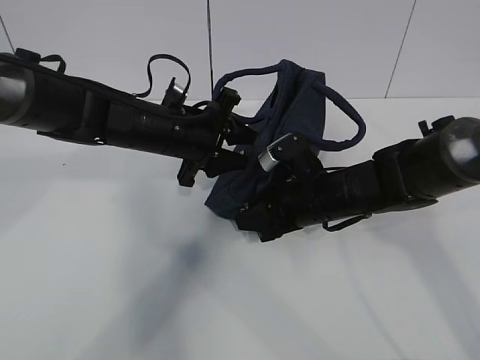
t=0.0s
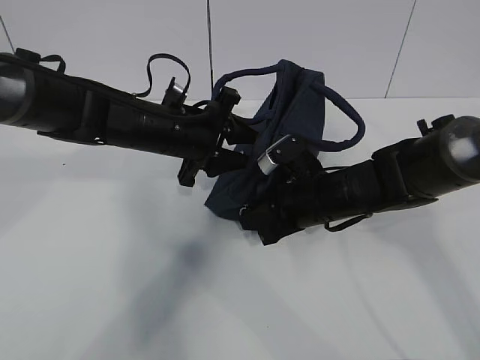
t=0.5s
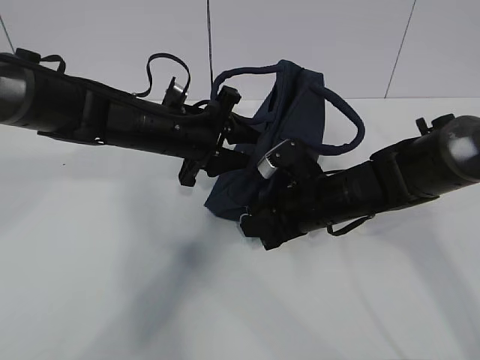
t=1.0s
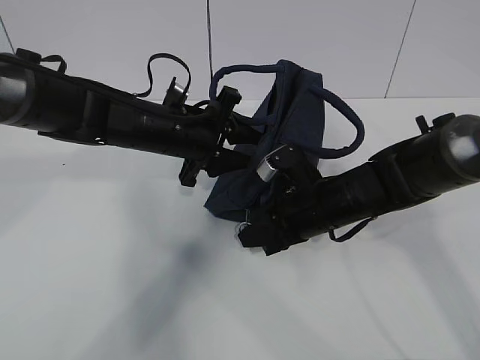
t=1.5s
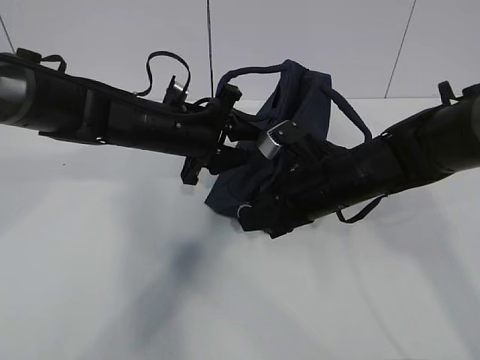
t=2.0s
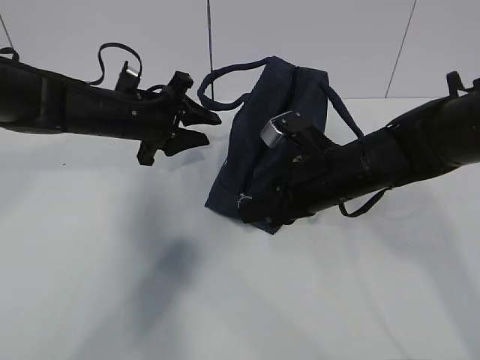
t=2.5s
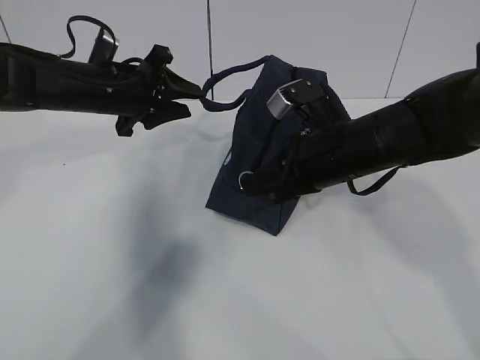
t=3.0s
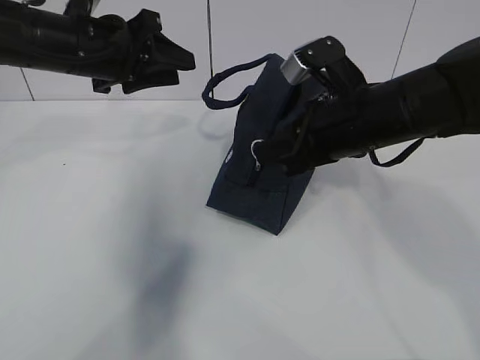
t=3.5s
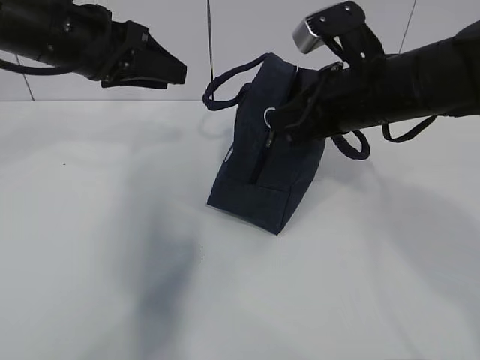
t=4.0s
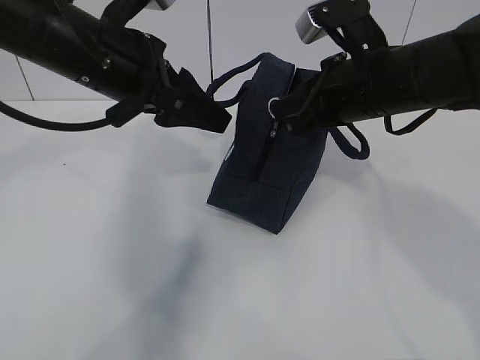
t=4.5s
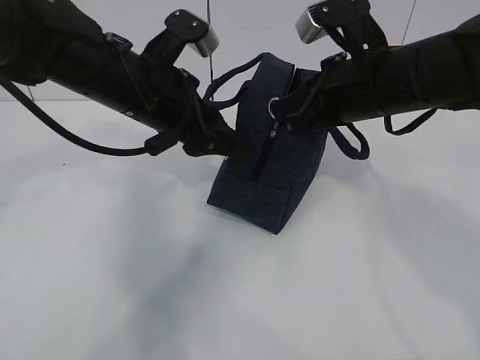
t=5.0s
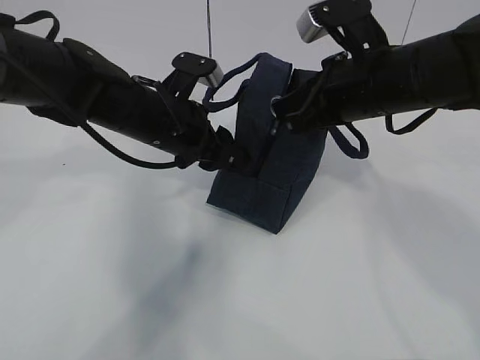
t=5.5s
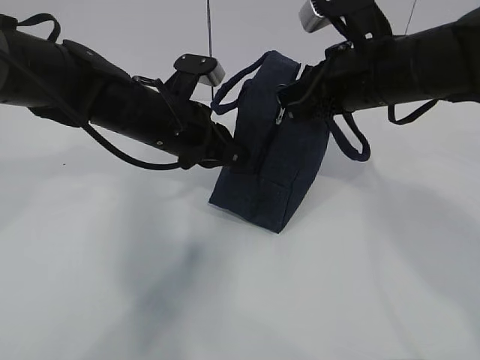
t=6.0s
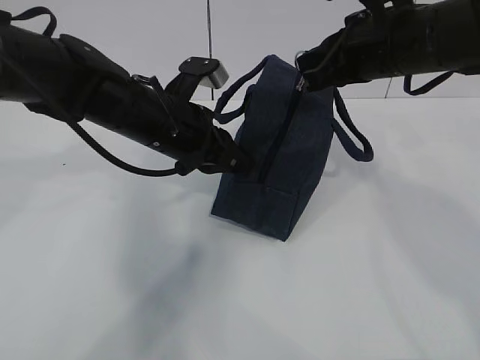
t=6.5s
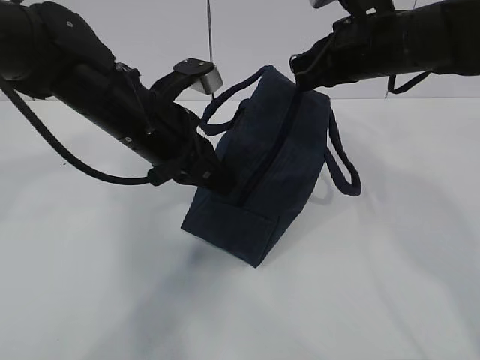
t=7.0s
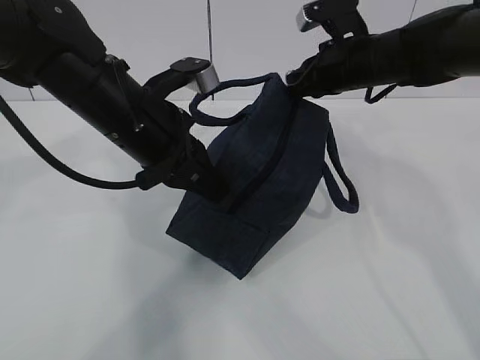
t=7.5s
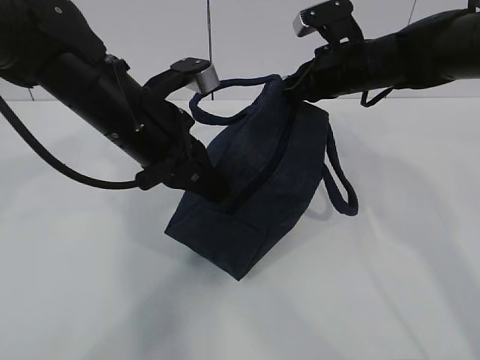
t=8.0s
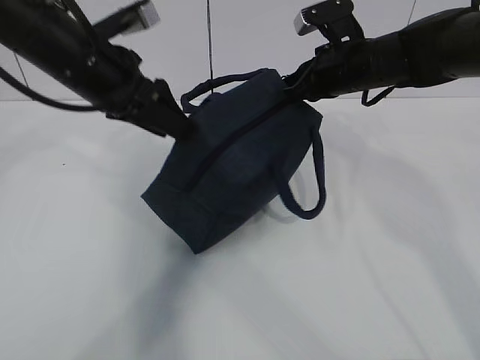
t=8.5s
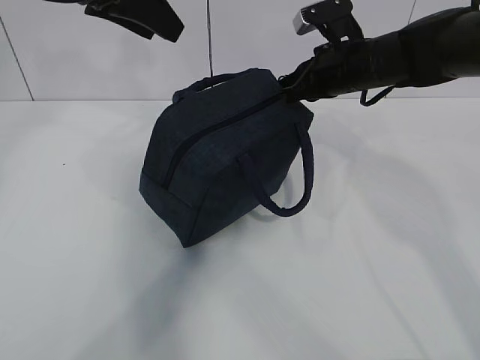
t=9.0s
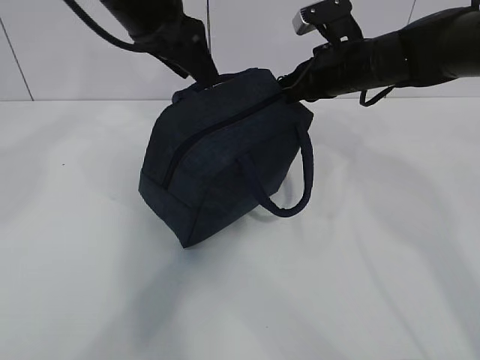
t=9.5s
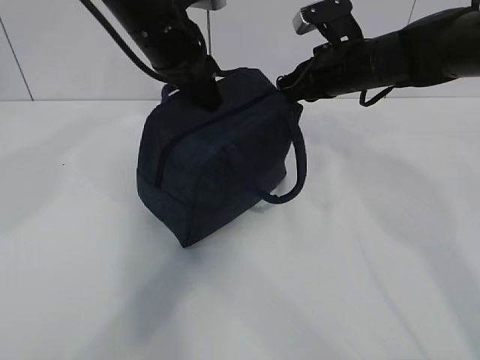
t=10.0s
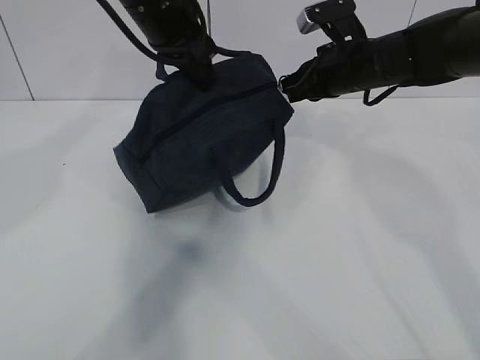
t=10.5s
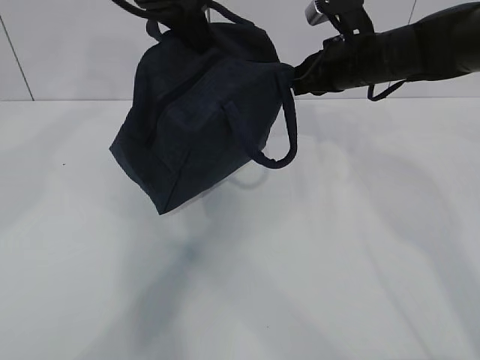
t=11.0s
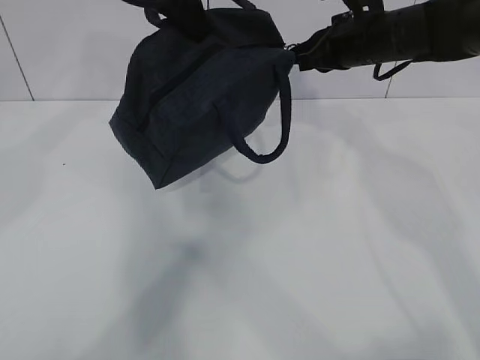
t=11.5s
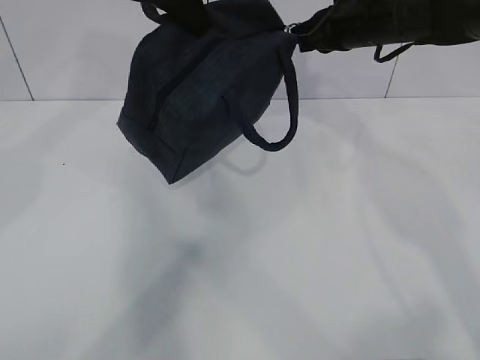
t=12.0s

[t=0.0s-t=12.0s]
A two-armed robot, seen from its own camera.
Step, t=0.0s to t=3.0s: Pull the zipper with your right hand.
Step, t=3.5s to t=4.0s: Grab the lunch bag with your left hand.
t=0.0s to t=2.0s: There are only small adjustments of the grippers.
t=2.0s to t=4.0s: The right gripper travels upward by some 10 cm. The left gripper is displaced upward and to the left by roughly 15 cm.
t=4.0s to t=6.0s: The left gripper travels downward and to the right by approximately 15 cm, and closes its fingers.
t=6.0s to t=8.0s: The right gripper heads forward, covering some 10 cm; the left gripper ends up roughly 5 cm from where it was.
t=8.0s to t=10.0s: The left gripper goes about 10 cm forward and upward, and opens and closes again.
t=10.0s to t=12.0s: The right gripper goes some 5 cm upward. The left gripper heads upward, covering roughly 10 cm.

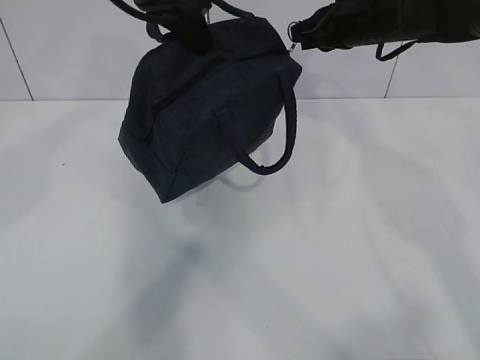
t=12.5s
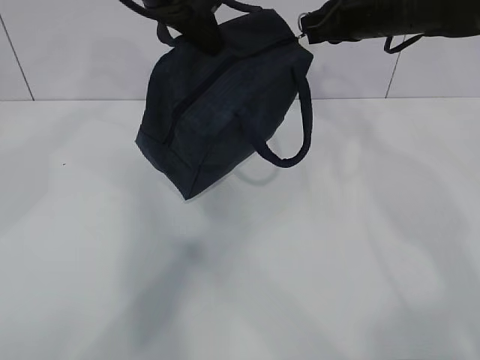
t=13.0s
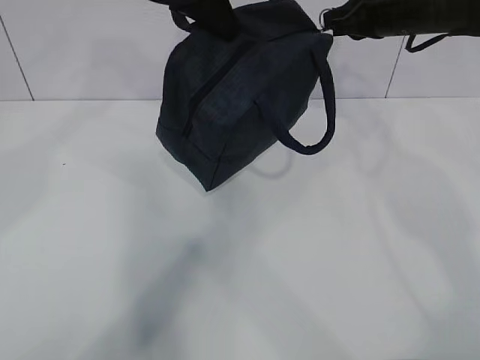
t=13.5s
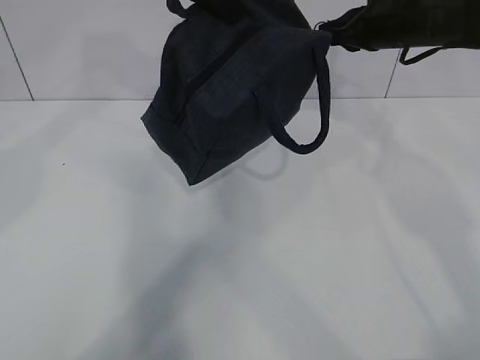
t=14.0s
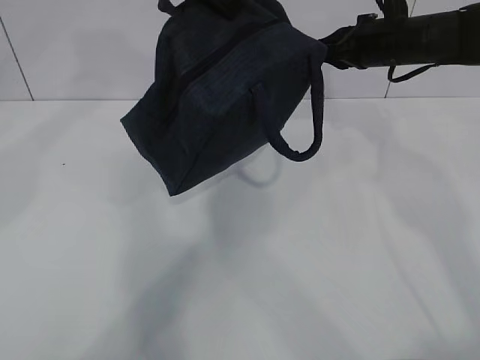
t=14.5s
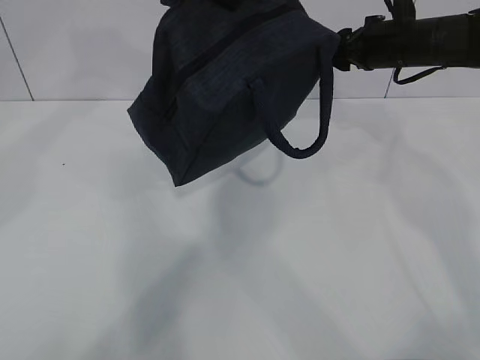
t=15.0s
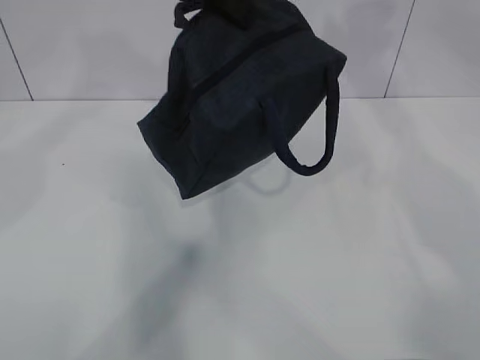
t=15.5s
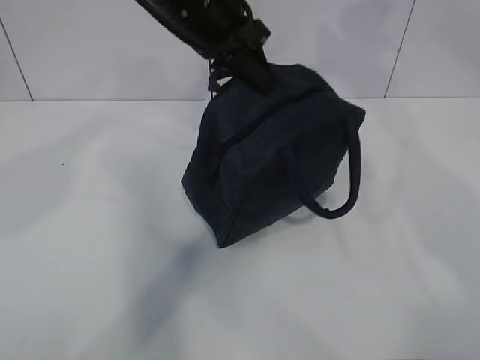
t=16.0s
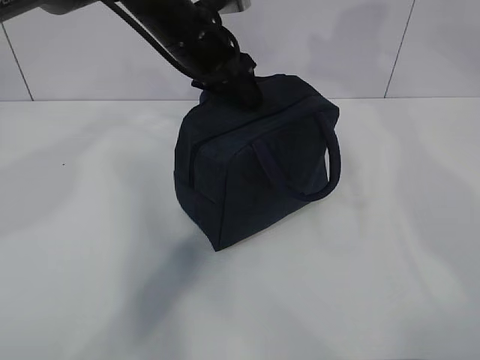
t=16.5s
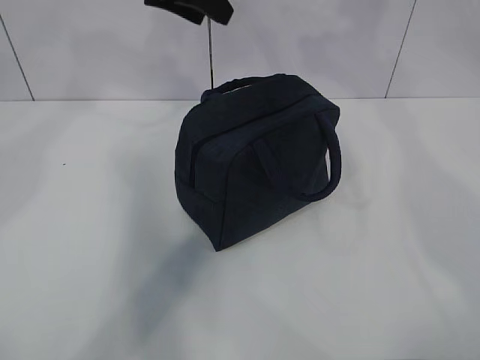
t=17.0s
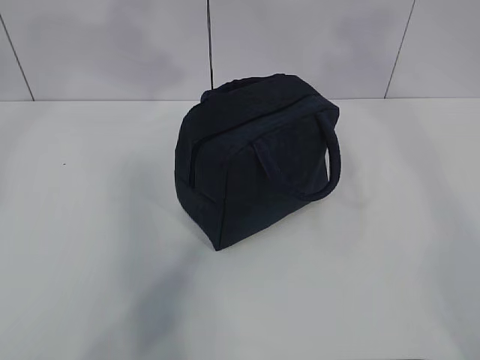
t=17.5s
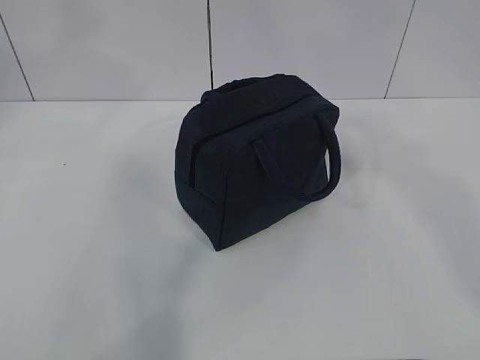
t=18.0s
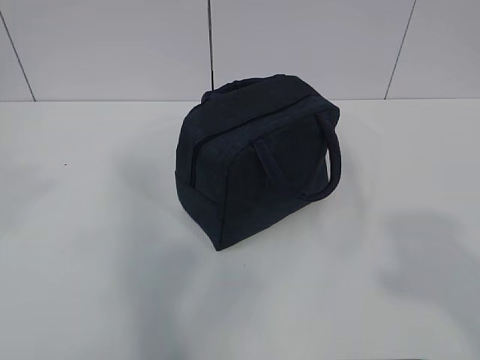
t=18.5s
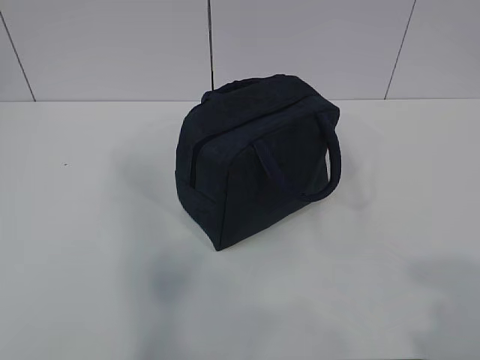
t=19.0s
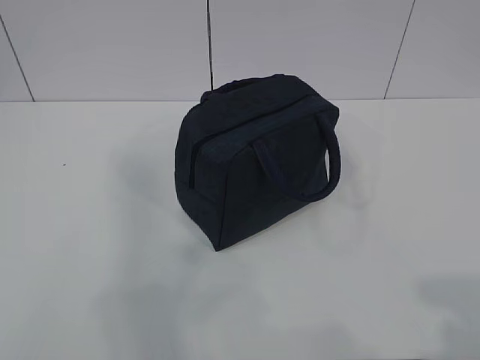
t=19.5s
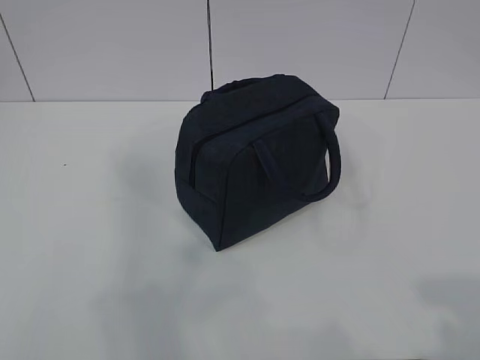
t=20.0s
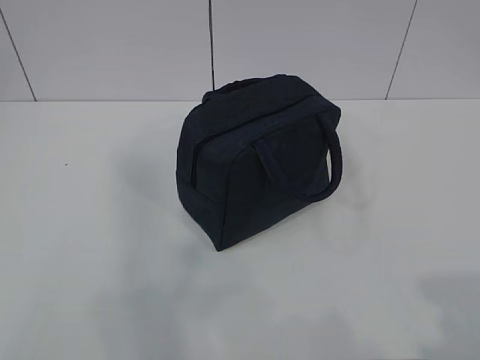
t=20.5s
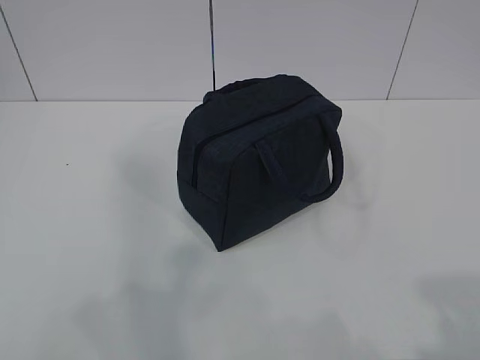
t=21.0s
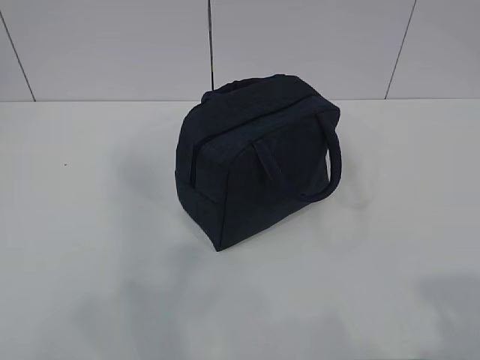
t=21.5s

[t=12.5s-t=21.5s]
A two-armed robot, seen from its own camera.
t=12.5s to t=14.5s: The right gripper shifts by some 5 cm.
t=14.5s to t=17.0s: The left gripper goes downward and returns, about 15 cm each way, and opens; the right gripper shifts some 20 cm upward and backward, and opens.
t=17.0s to t=19.5s: The right gripper travels backward by about 40 cm. The left gripper moves backward and to the left, about 50 cm.
